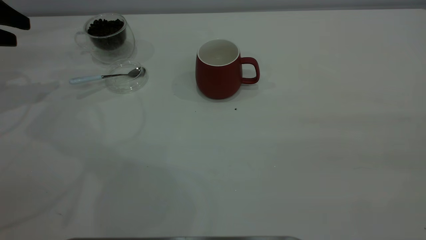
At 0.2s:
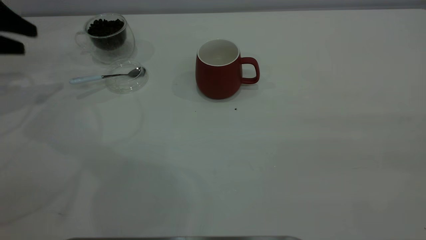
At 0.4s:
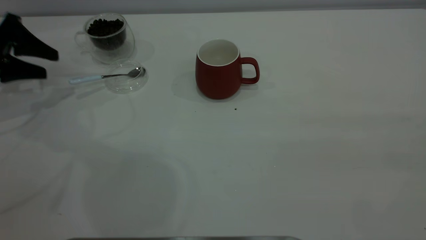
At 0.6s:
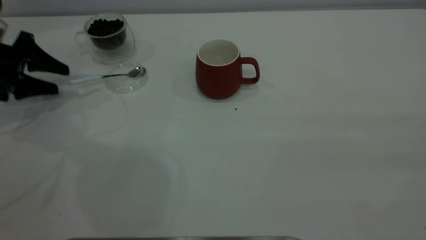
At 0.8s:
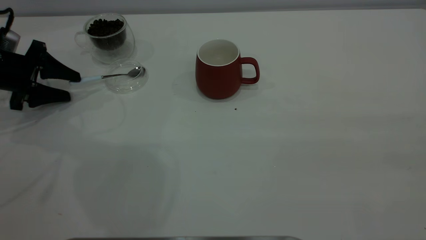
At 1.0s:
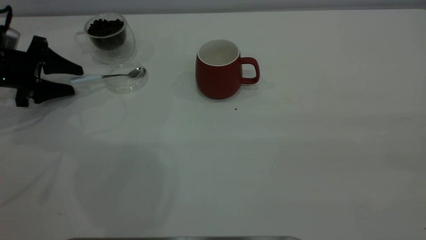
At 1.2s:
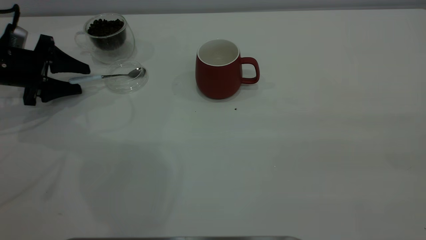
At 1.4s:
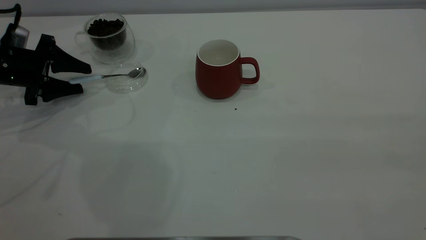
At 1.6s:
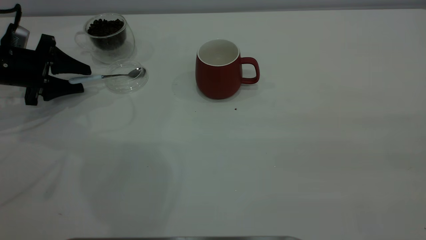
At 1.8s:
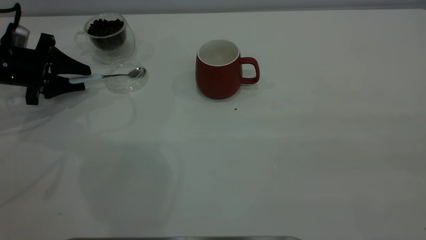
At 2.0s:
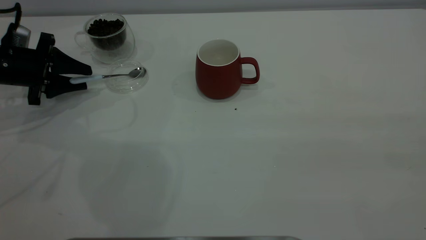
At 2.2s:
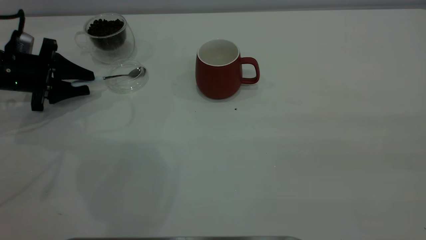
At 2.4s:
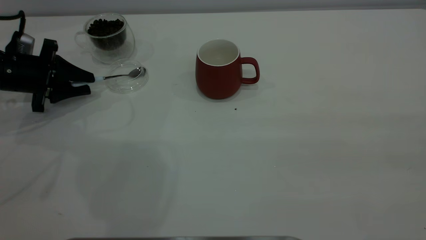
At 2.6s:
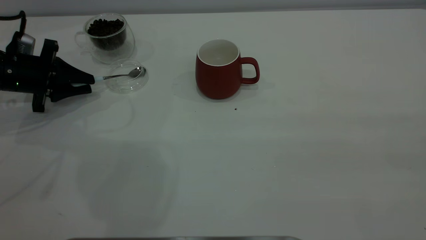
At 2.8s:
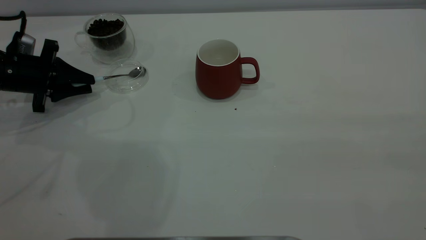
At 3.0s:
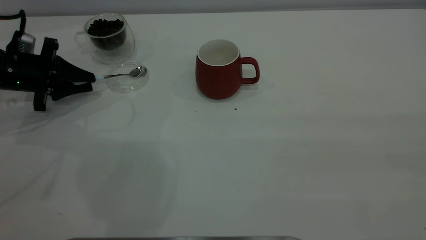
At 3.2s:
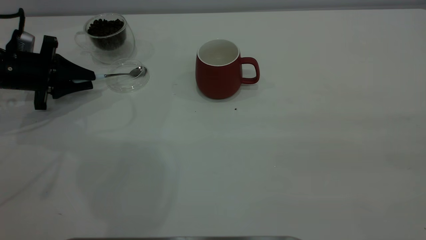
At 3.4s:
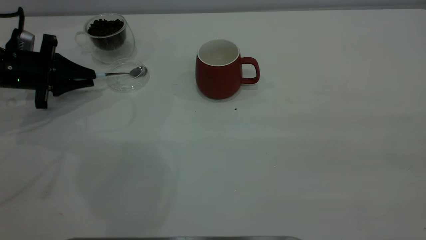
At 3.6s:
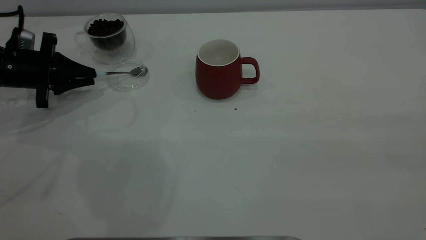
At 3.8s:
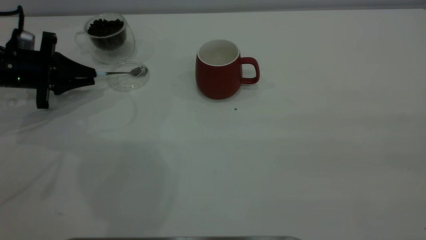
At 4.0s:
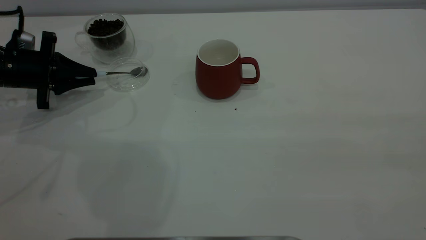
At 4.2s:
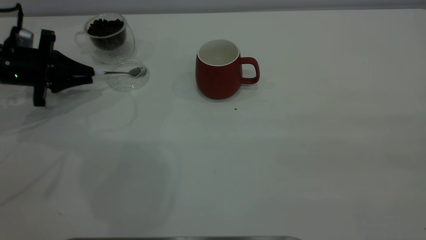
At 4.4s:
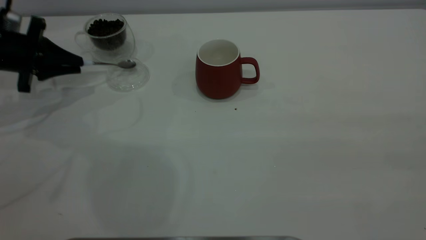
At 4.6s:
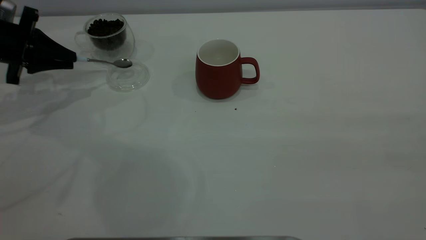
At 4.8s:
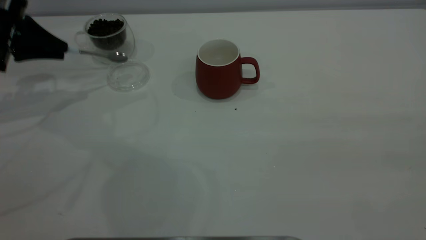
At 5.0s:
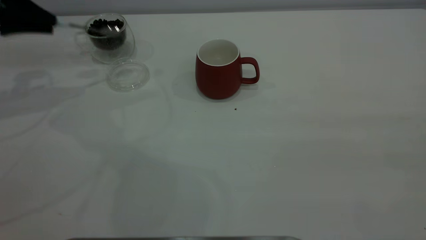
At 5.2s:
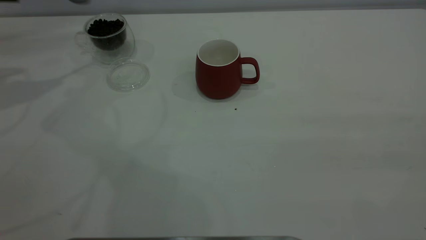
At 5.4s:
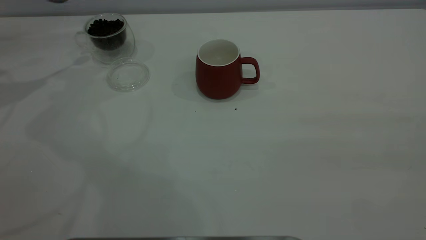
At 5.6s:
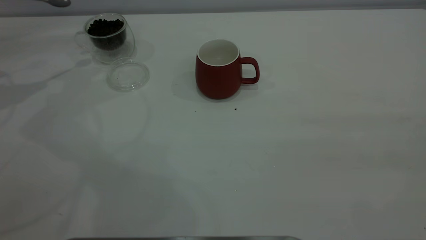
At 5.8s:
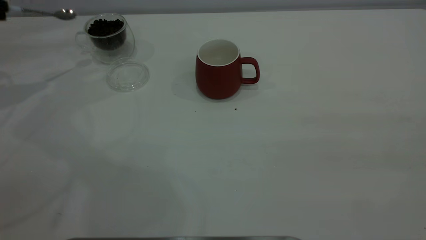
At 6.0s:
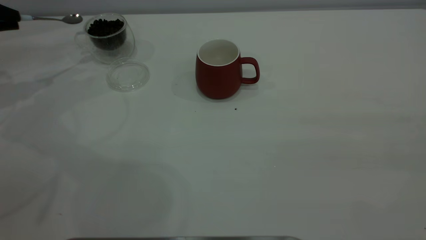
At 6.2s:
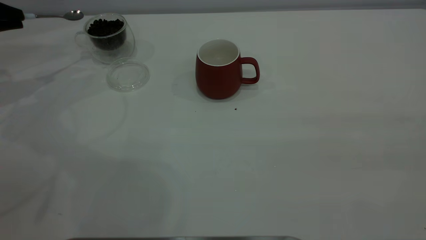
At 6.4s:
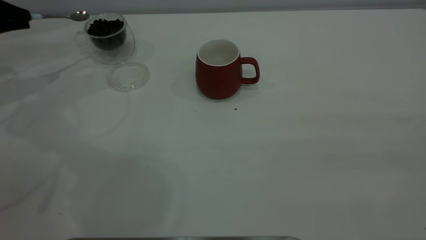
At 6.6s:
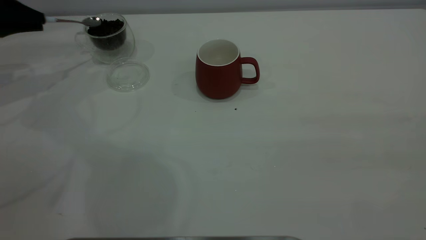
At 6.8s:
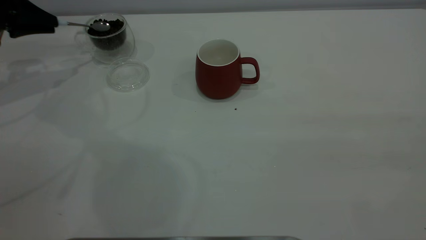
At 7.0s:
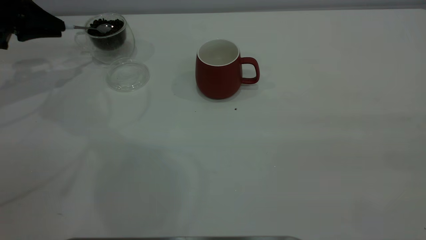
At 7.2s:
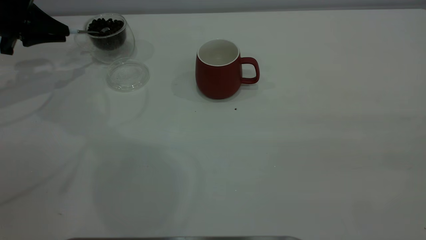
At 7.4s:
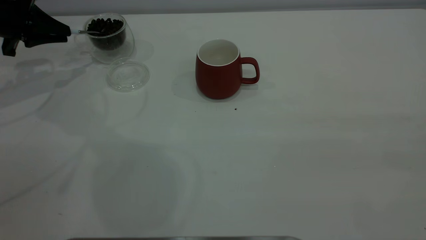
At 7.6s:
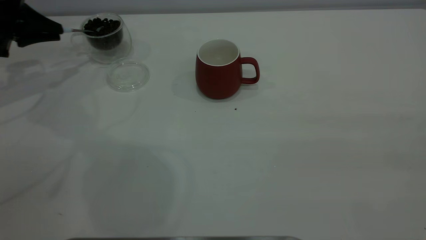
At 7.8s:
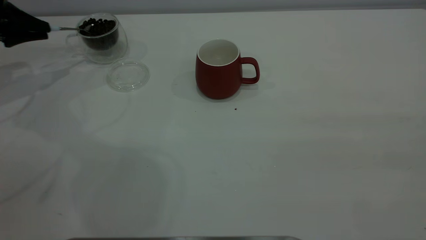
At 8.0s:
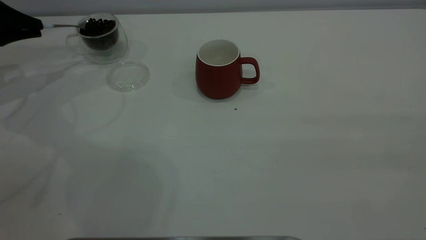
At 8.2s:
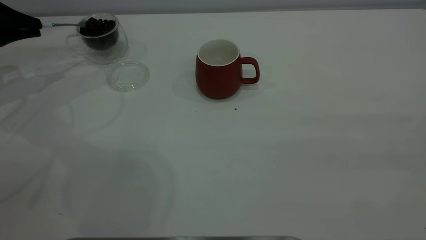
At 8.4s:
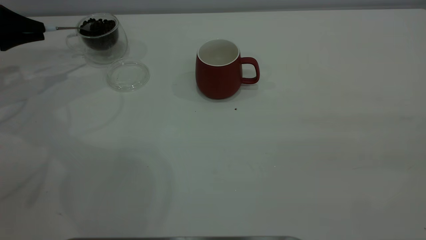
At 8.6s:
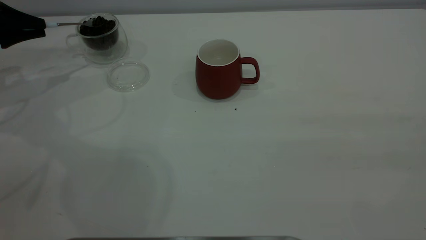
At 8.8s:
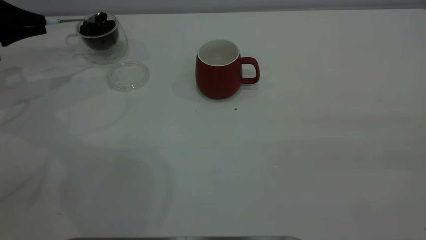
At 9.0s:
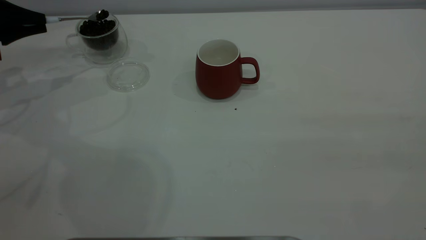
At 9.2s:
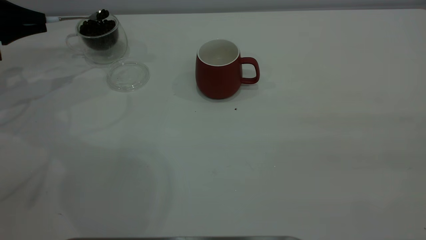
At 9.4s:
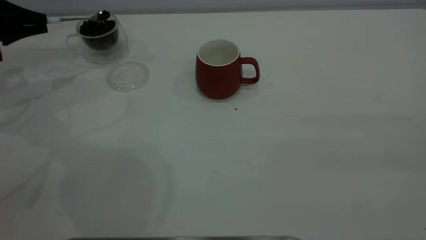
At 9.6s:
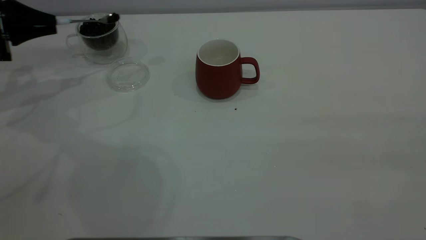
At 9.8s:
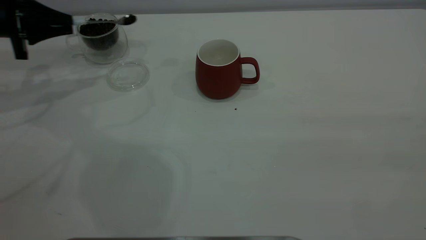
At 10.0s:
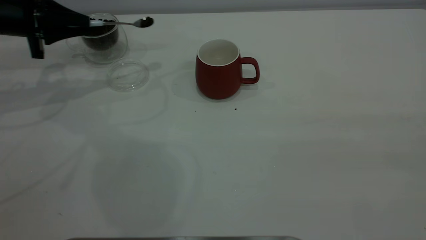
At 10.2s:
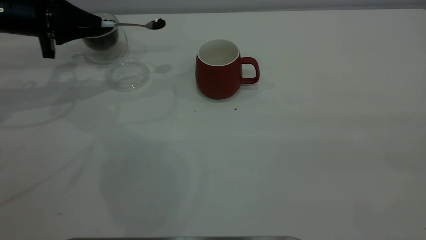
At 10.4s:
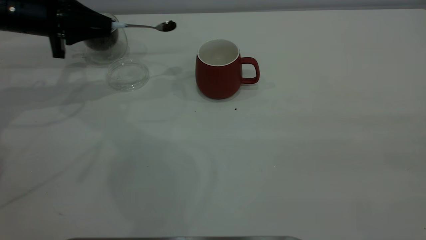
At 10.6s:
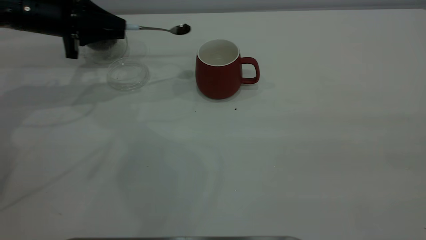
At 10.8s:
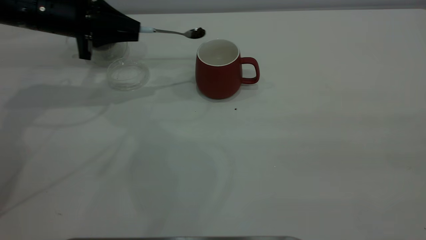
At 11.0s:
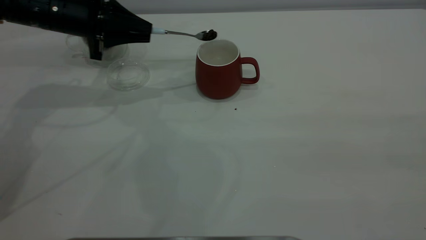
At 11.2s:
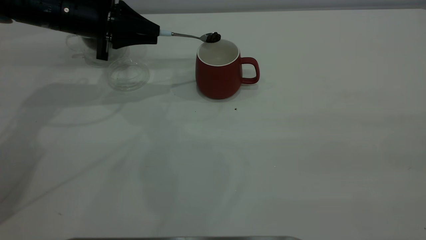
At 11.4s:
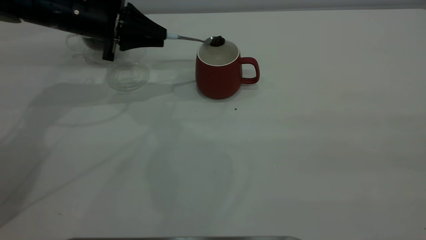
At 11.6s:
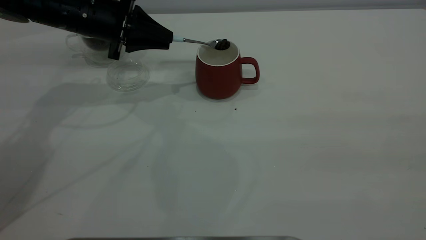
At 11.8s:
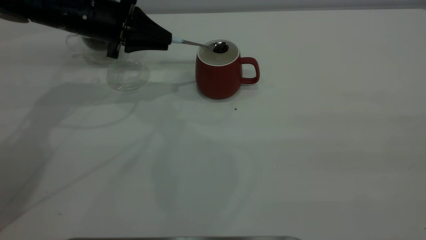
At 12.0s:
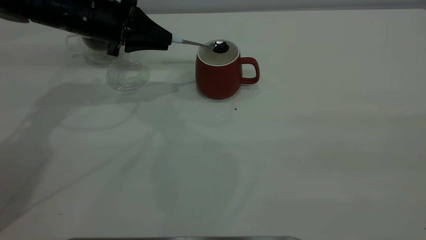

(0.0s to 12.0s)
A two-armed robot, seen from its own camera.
Task of the whole recording: the right gripper place the red cup in the center of the table, the left gripper take the blue spoon from the cup lid and scoop out the coffee beans from the coffee cup and put them into the red cup, the left gripper put the spoon back into the cup lid.
Step, 0.0s - 4.8s: Pick up the spoon.
0.0s - 1.6s: The left gripper is displaced downward and to the right by some 15 cm.
1.6s - 3.0s: The left gripper closes its fingers.
3.0s - 4.4s: The grippers stay close to where they were, moving slightly.
4.4s - 6.0s: The left gripper shifts approximately 10 cm to the left and upward.
6.0s - 7.6s: The left gripper ends up approximately 5 cm from where it was.
7.6s - 9.0s: There are only small adjustments of the grippers.
9.0s - 10.4s: The left gripper heads to the right, covering roughly 10 cm.
10.4s - 12.0s: The left gripper shifts about 10 cm to the right.

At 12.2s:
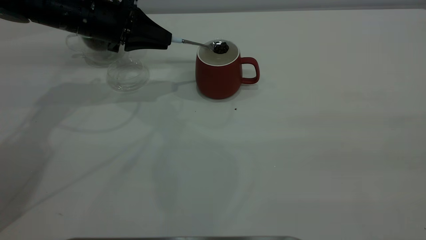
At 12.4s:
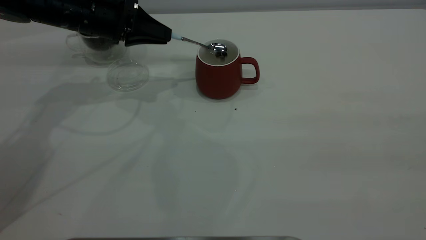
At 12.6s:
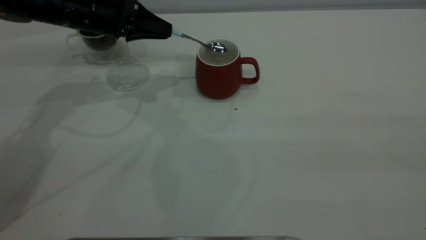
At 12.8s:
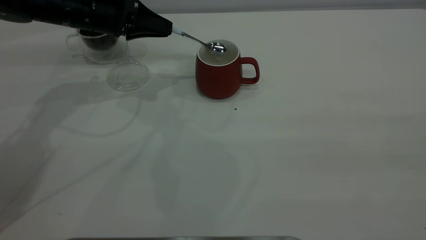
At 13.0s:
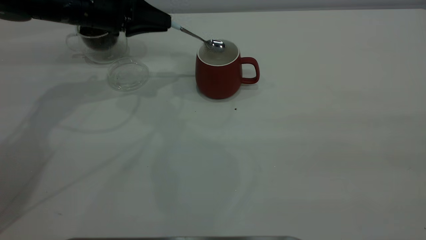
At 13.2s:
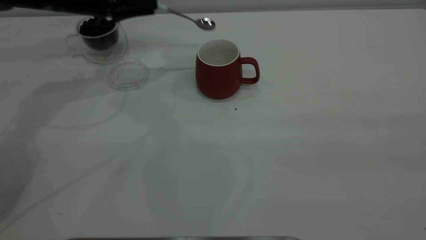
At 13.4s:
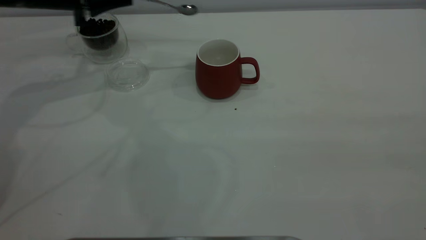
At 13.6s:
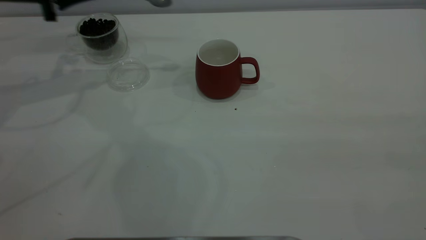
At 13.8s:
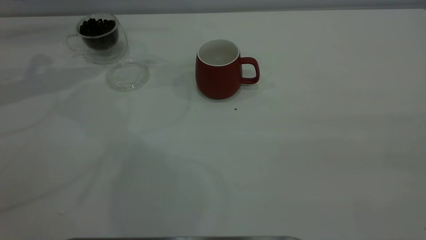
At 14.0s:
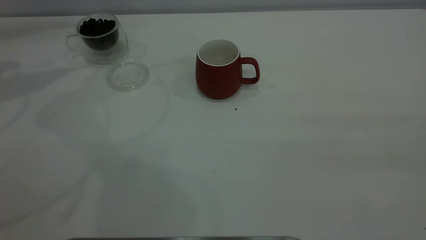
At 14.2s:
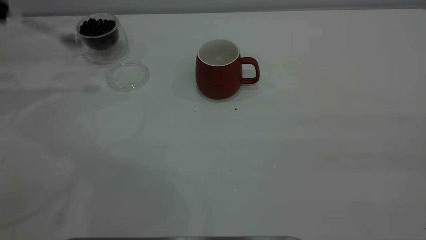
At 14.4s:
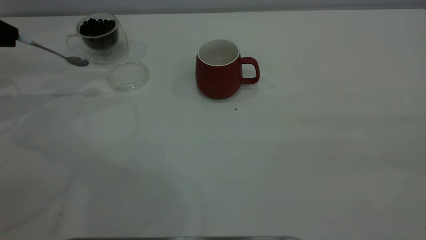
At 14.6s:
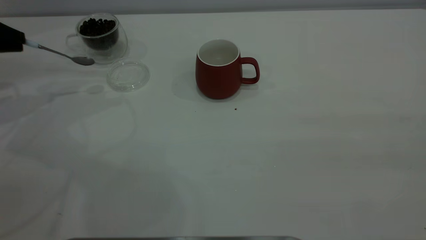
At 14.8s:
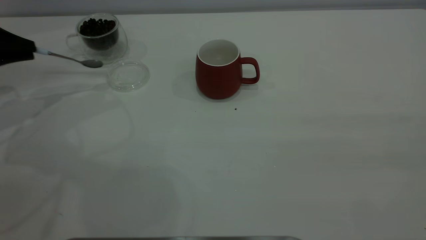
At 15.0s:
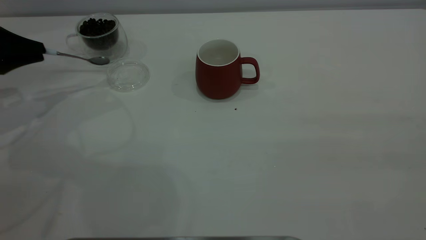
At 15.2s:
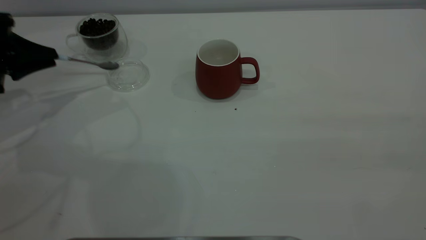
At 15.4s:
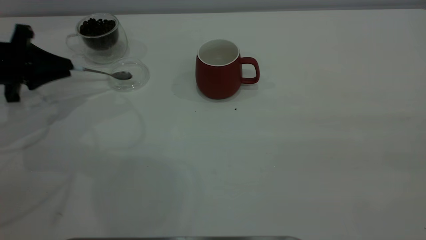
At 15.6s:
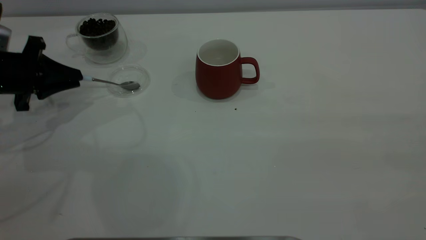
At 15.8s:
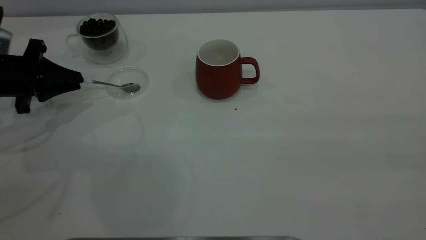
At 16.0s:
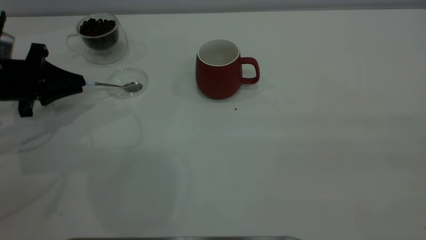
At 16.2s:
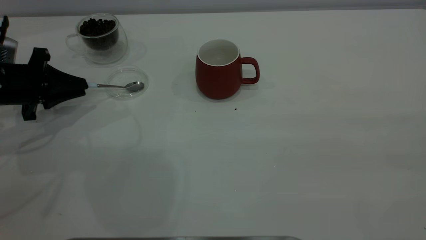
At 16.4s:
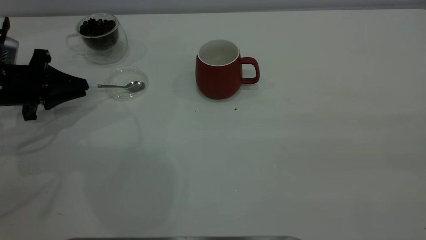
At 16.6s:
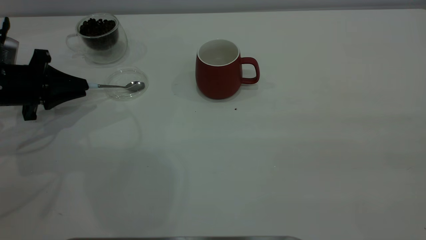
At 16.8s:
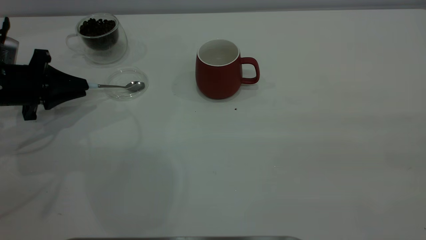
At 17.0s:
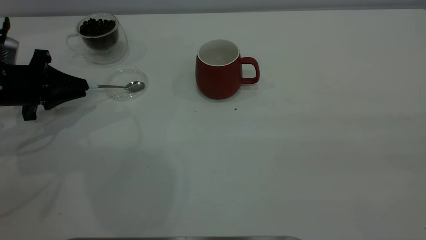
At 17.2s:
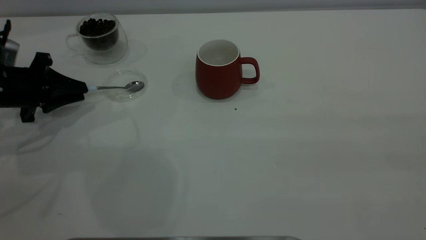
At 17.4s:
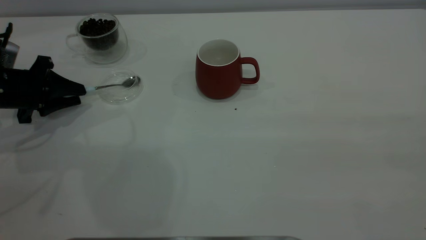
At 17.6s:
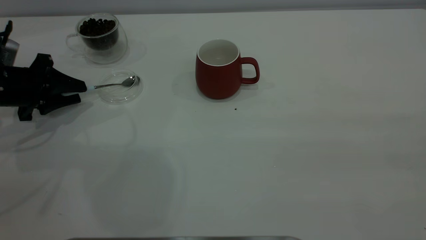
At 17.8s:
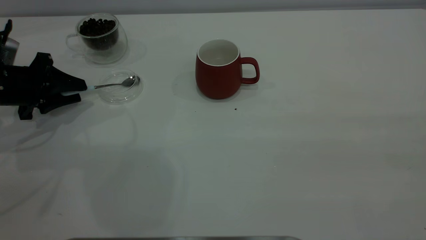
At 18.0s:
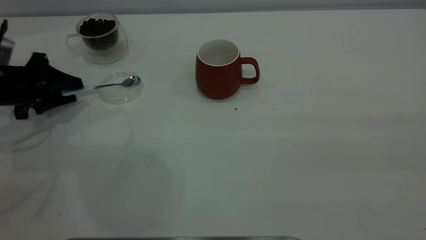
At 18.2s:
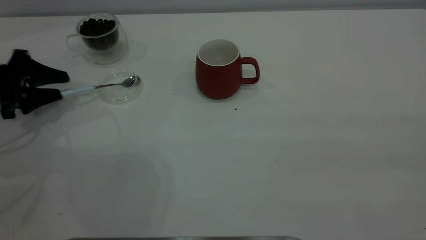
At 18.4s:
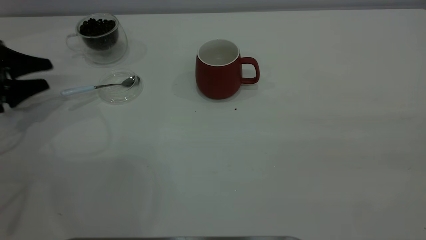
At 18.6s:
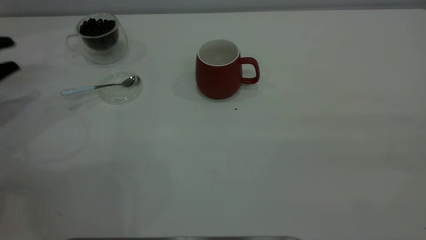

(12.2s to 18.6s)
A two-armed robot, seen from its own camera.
Task of the whole recording: the right gripper place the red cup in the center of the table, the left gripper take the blue spoon from the cup lid and scoop out the coffee beans from the coffee cup and put them into the red cup, the left gripper put the spoon back into the cup lid.
Step, 13.2s - 18.2s: Place the spoon back in its original place.
12.2s - 13.8s: The left gripper is displaced to the left and upward by some 20 cm.
13.8s - 15.4s: The left gripper is displaced downward and backward by about 20 cm.
15.4s - 17.0s: The grippers move only a little.
17.0s - 18.6s: The left gripper travels to the left by about 10 cm, and opens up.
